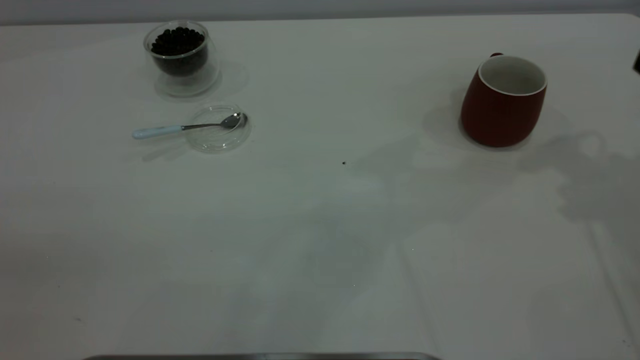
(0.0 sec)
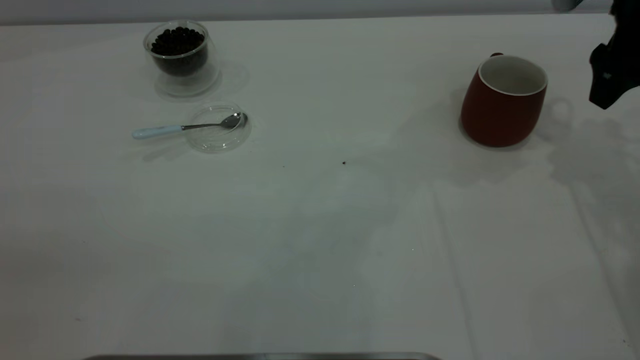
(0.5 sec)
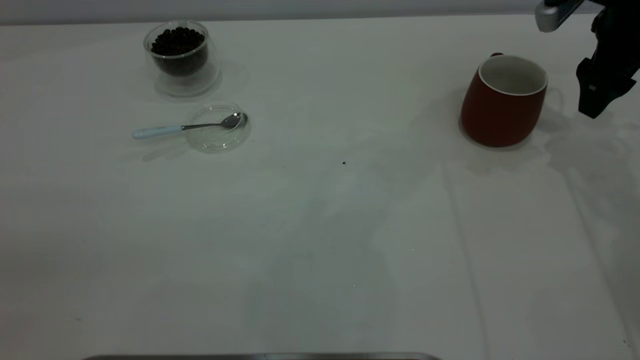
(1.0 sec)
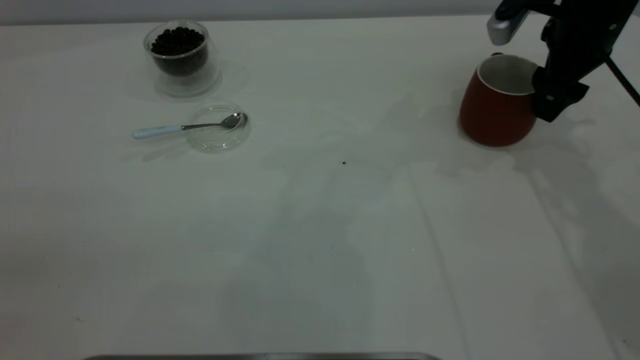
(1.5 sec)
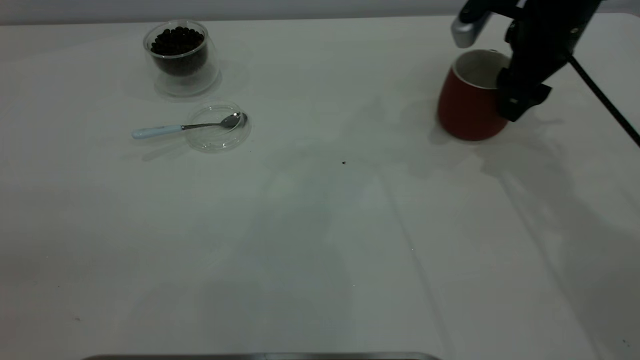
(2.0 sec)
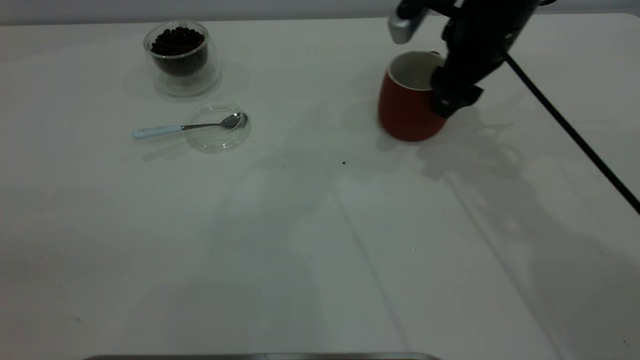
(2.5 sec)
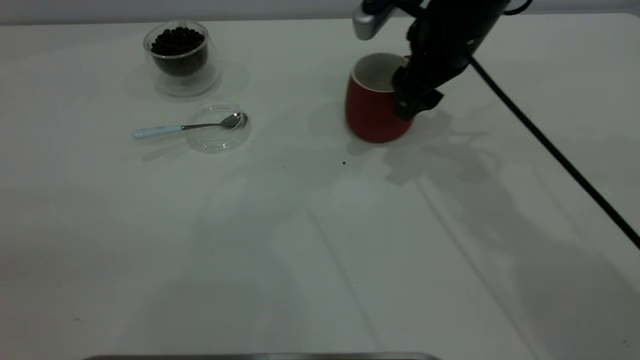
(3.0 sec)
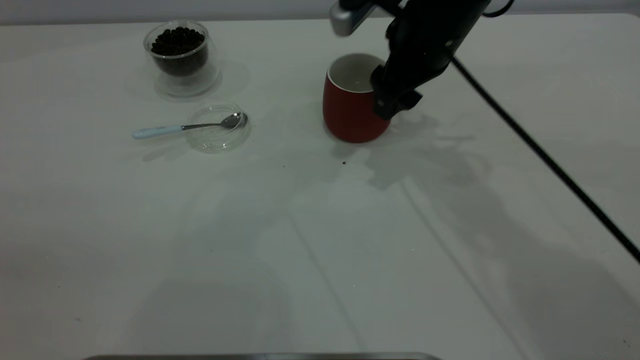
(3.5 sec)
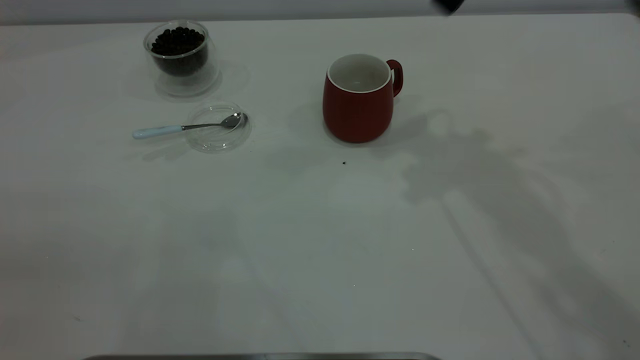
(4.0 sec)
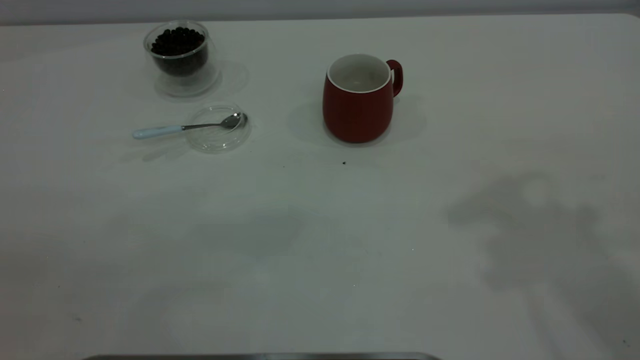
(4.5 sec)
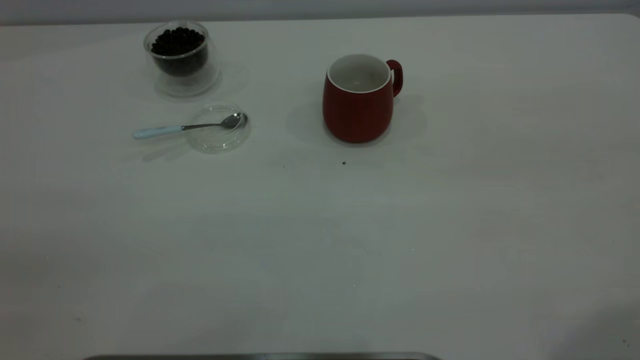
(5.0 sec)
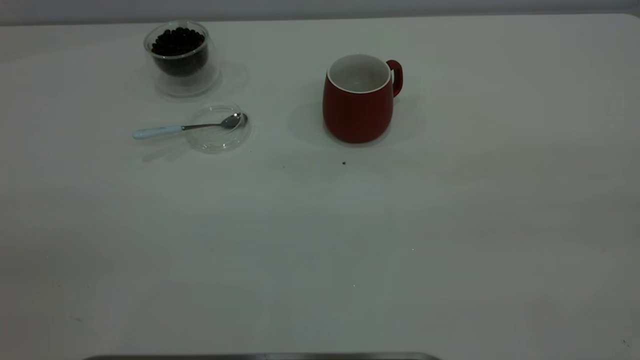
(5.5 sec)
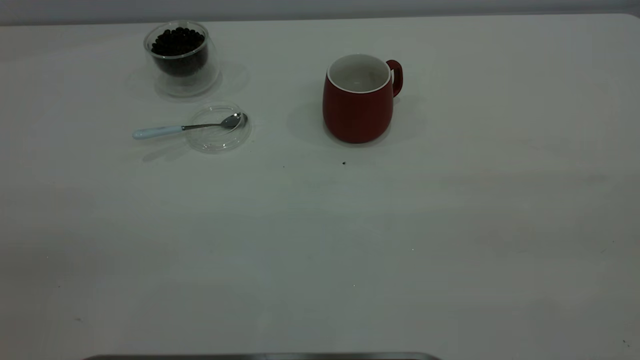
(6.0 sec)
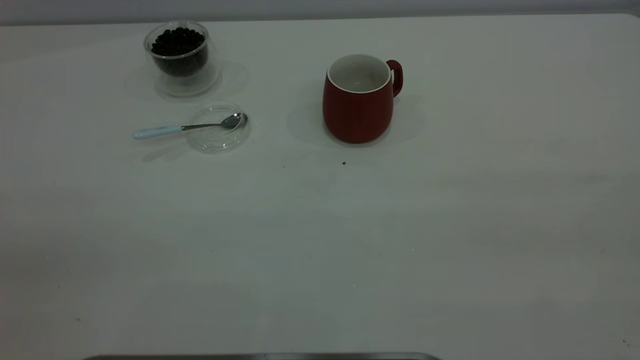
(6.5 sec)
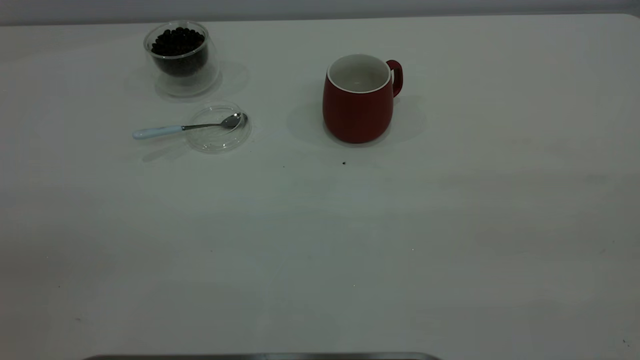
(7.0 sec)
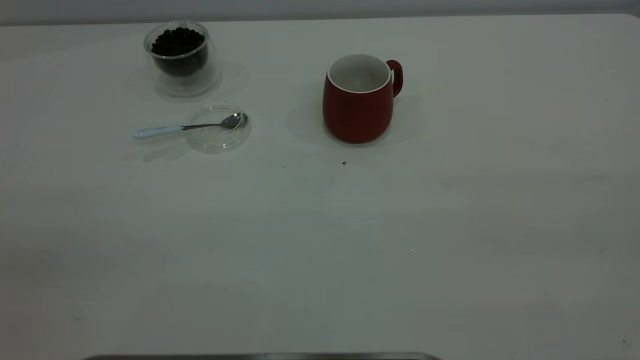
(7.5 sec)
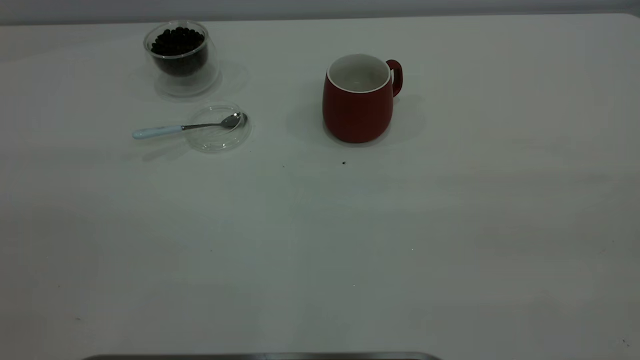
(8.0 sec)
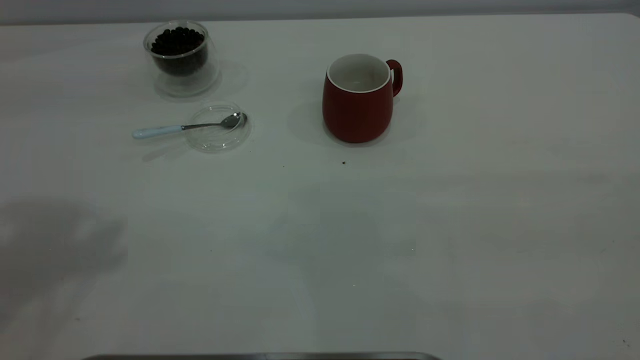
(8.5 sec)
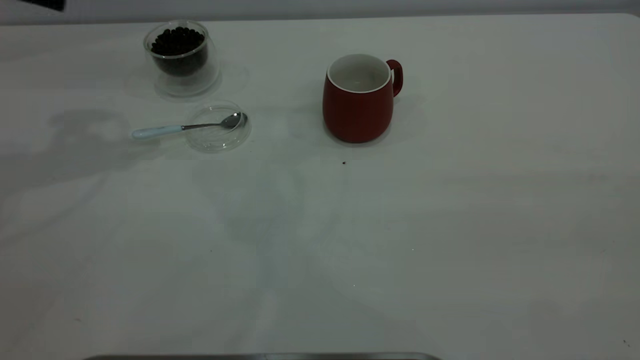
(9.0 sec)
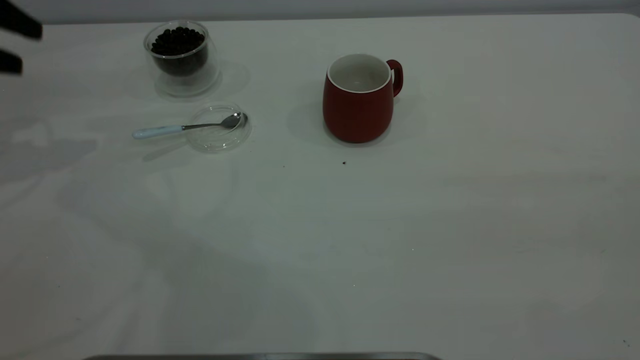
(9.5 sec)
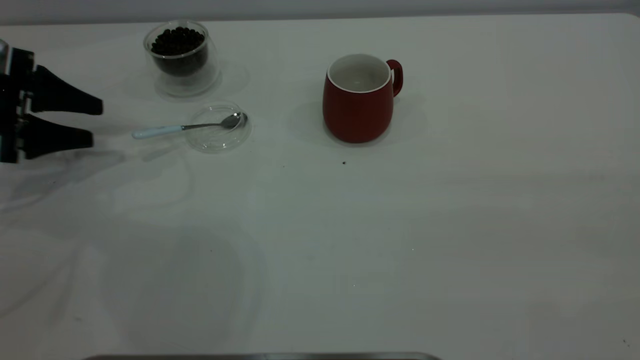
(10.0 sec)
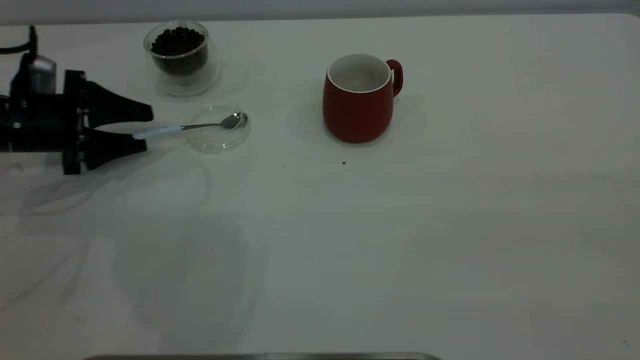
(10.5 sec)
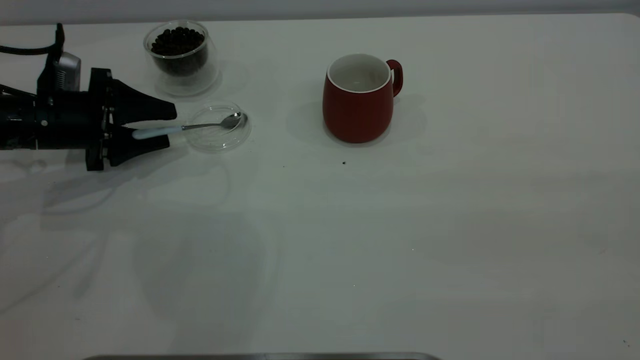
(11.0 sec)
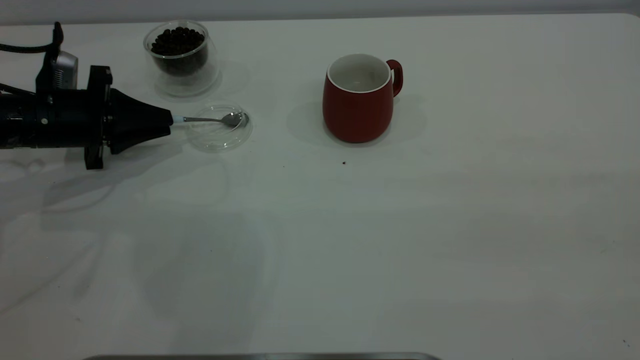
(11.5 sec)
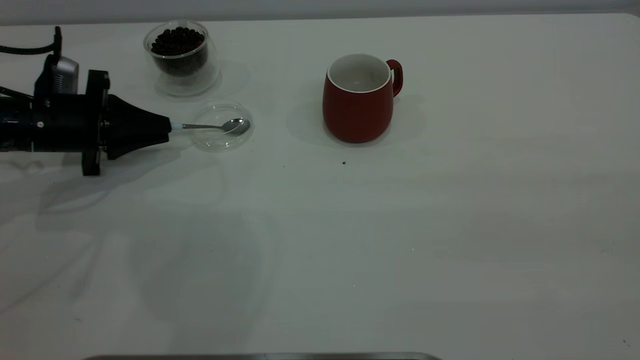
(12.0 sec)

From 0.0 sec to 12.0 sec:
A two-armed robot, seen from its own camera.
Task of the whole recording: the right gripper place the red cup in the center of the table, the left gripper take the blue spoon from the cup lid and scoop out the coffee beans from the coffee cup and put them into the red cup, the left gripper put the spoon back into the cup lid.
Step, from 0.0 sec to 3.5 sec: Move the cup to the center of view.
From 0.0 sec to 2.0 sec: The right gripper travels downward, to the left and forward by roughly 15 cm, and closes.
From 2.0 sec to 4.0 sec: The right gripper is displaced upward by roughly 20 cm.
From 8.0 sec to 10.0 sec: The left gripper travels forward and downward by about 50 cm.
From 10.0 sec to 12.0 sec: The left gripper travels to the right by approximately 5 cm, and closes.

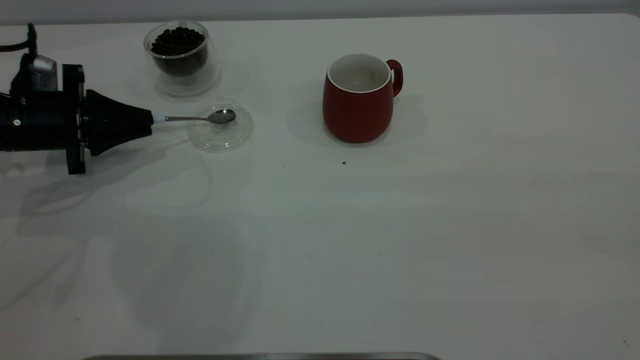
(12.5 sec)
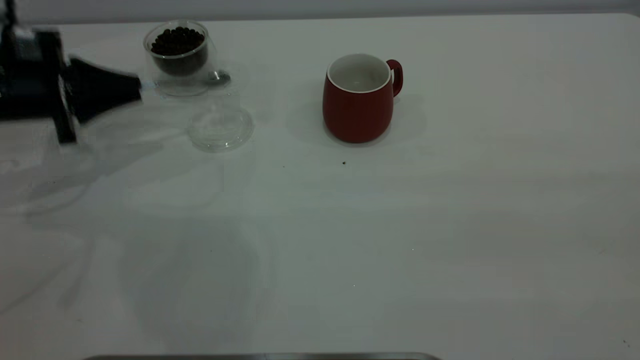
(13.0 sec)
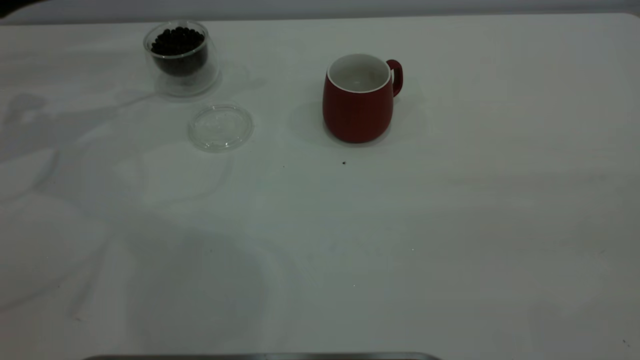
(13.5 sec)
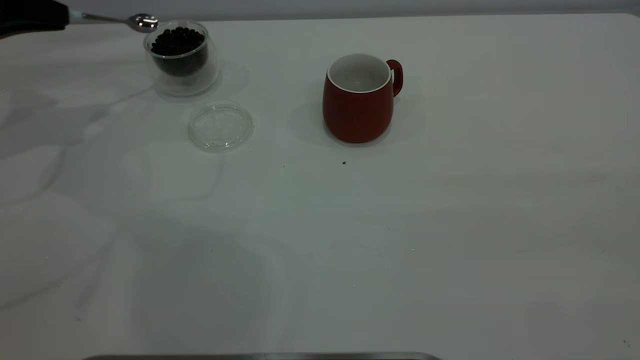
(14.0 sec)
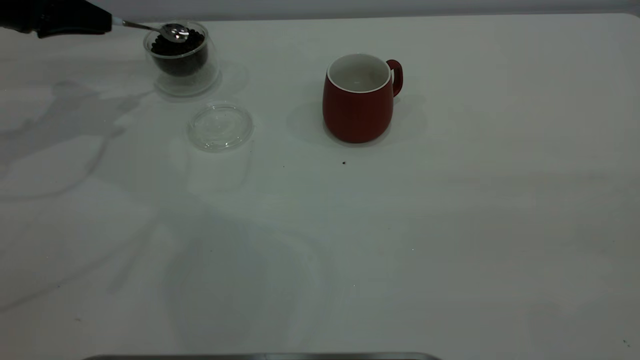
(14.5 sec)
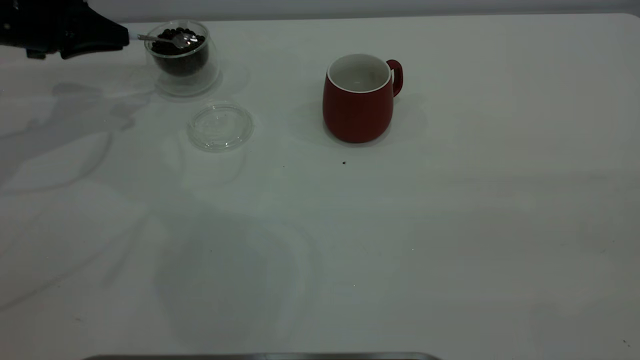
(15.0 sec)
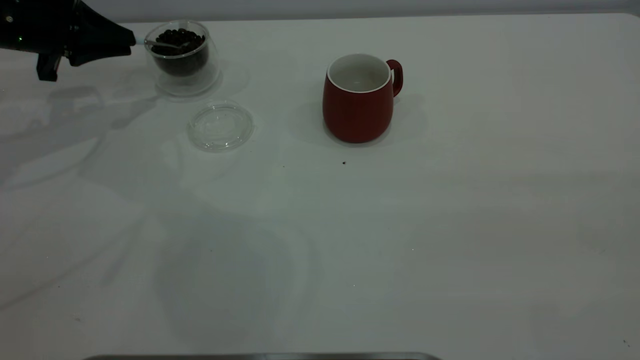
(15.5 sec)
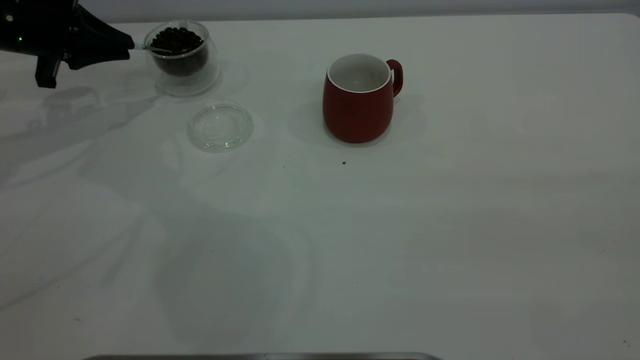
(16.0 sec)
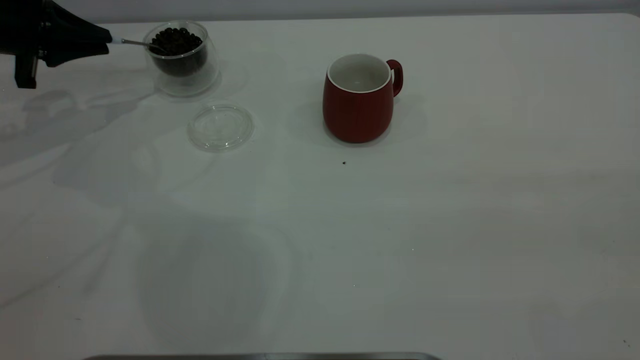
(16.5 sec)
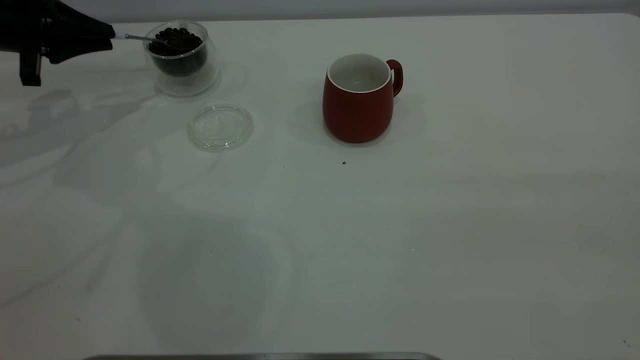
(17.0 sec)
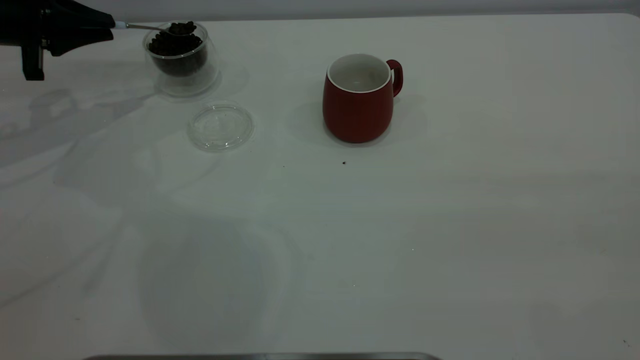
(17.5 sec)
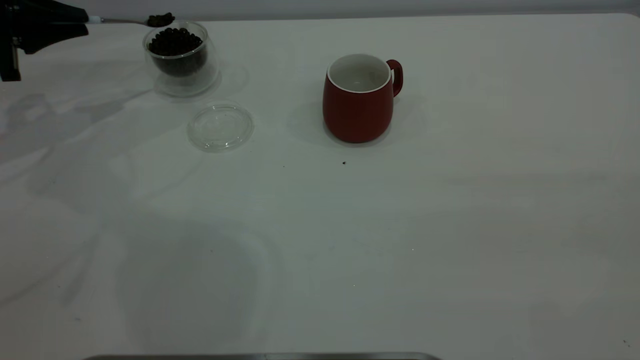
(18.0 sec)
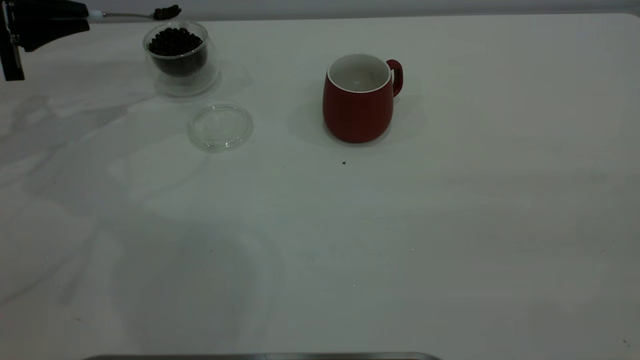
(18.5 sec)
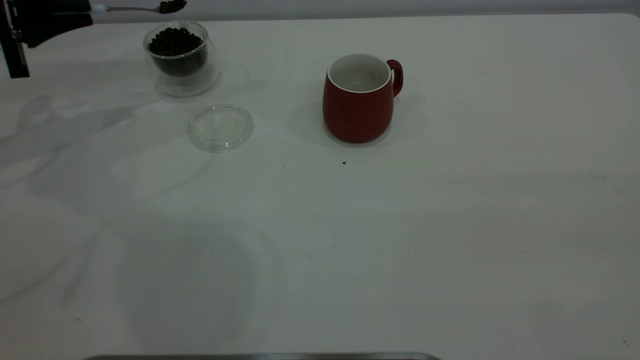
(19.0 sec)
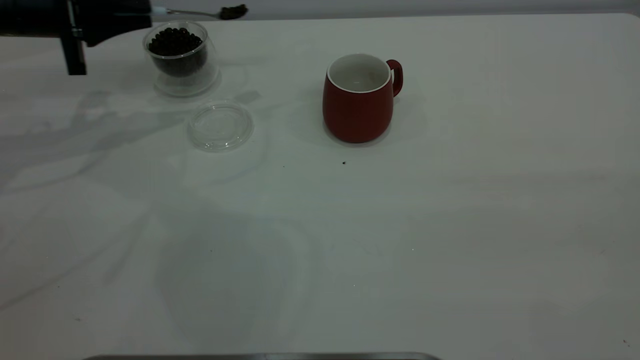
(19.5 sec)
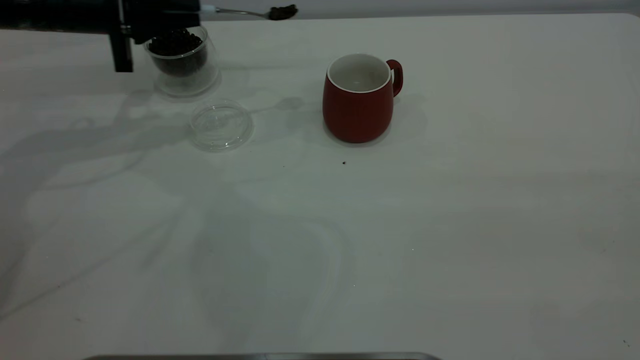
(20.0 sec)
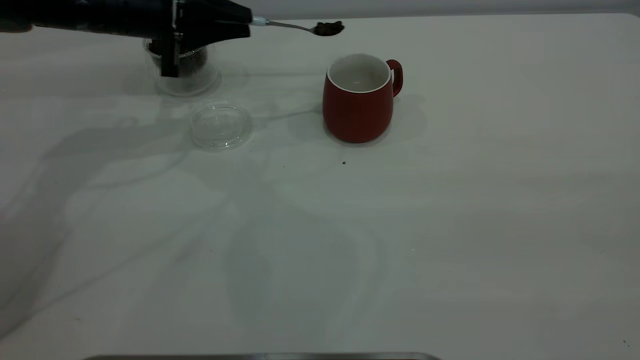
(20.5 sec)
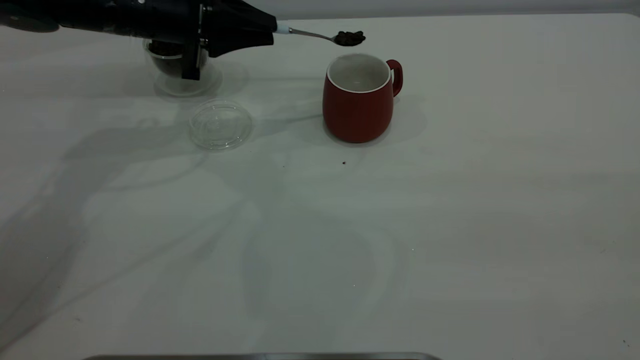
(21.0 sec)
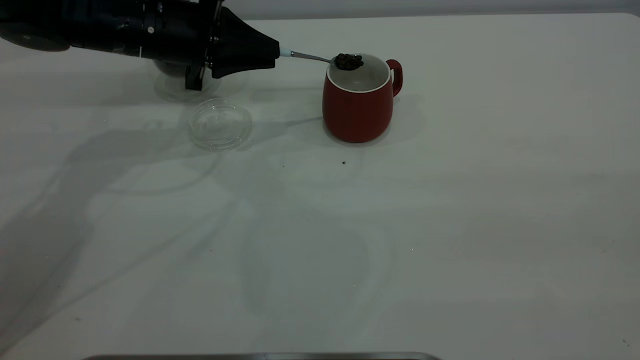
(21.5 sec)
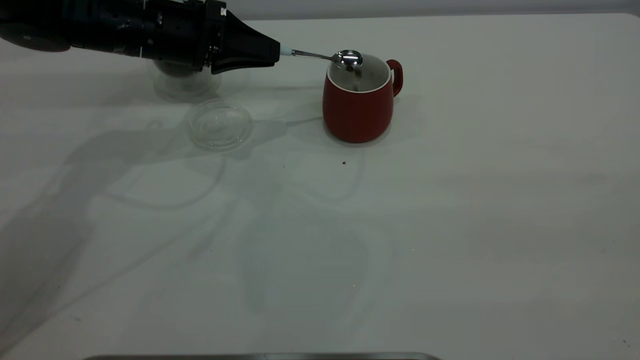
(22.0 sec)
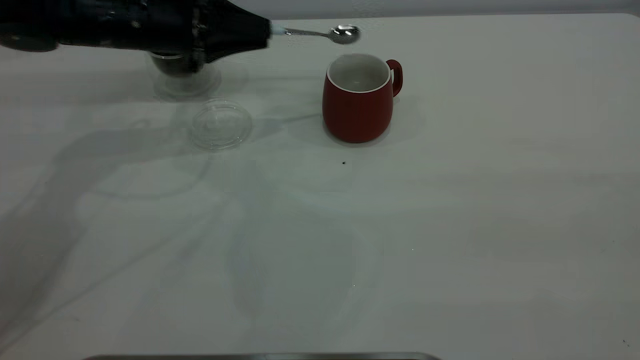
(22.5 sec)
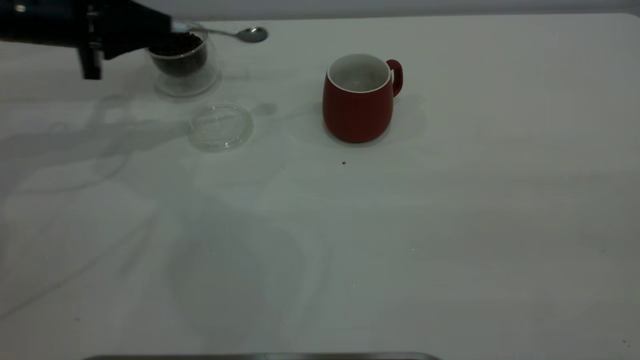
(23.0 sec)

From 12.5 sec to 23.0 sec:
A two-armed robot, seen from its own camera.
Task of the whole recording: the right gripper place the red cup in the center of the table, the left gripper take the blue spoon from the cup lid and scoop out the coffee beans from the coffee cup and put them into the red cup, the left gripper put the spoon back into the cup lid.
Step, from 13.5 sec to 22.0 sec: Scoop a spoonful of beans into the cup.
From 12.5 sec to 14.5 sec: The left gripper travels upward and forward by approximately 15 cm.
From 16.5 sec to 19.0 sec: The grippers move only a little.
From 19.0 sec to 21.0 sec: The left gripper shifts some 20 cm to the right.
From 21.0 sec to 23.0 sec: The left gripper shifts approximately 10 cm to the left.
